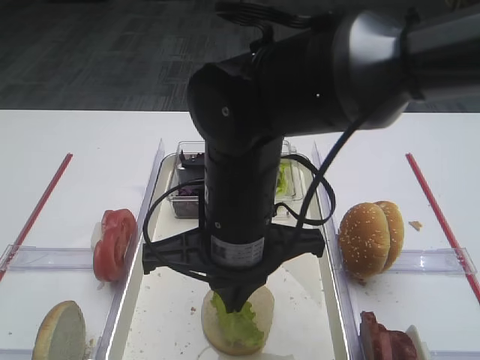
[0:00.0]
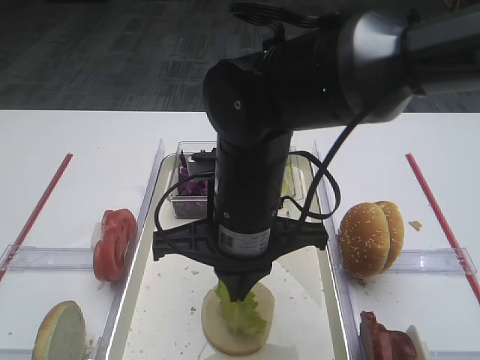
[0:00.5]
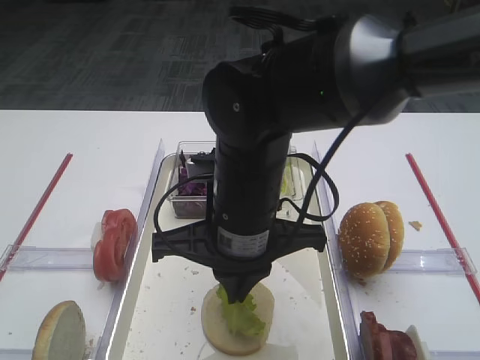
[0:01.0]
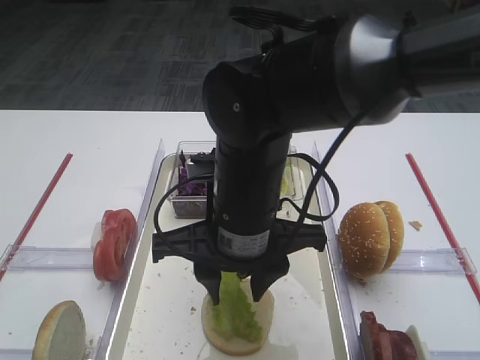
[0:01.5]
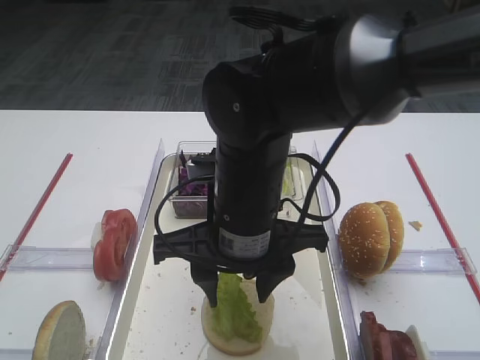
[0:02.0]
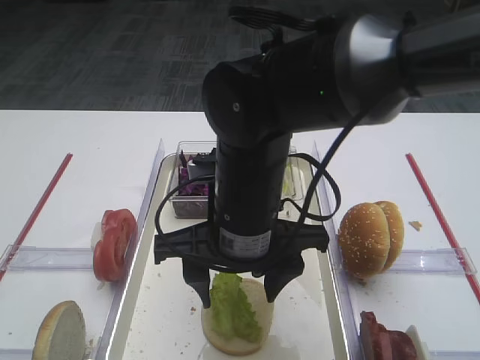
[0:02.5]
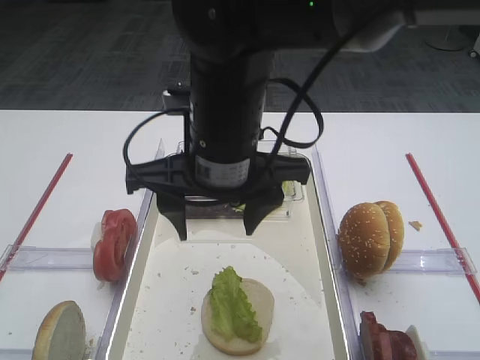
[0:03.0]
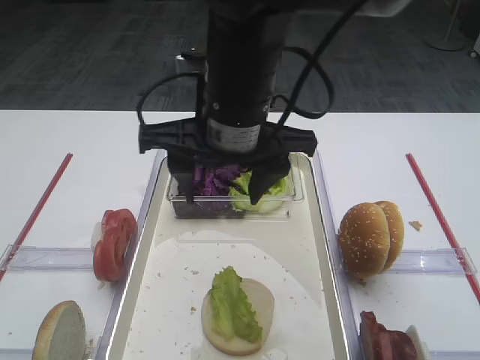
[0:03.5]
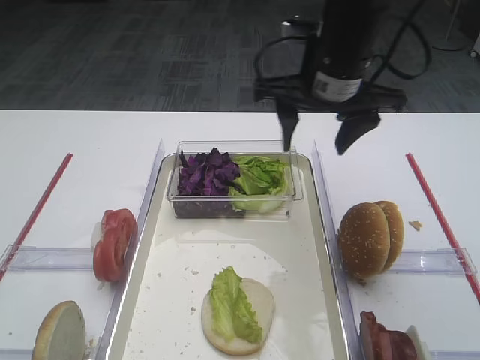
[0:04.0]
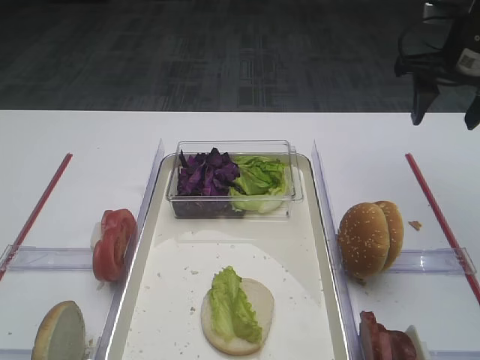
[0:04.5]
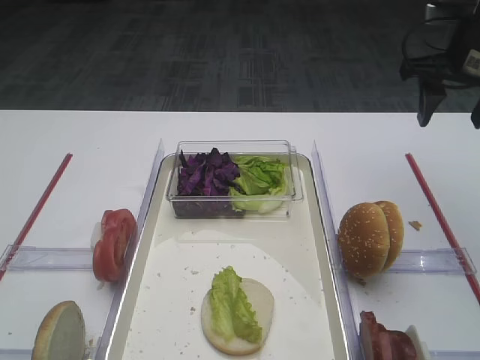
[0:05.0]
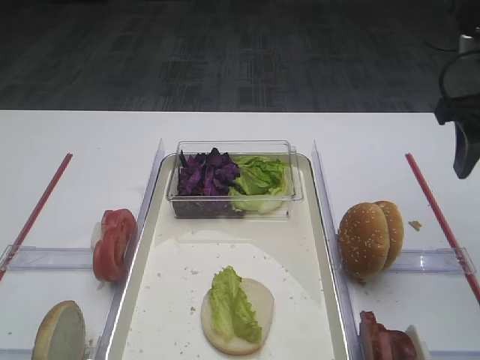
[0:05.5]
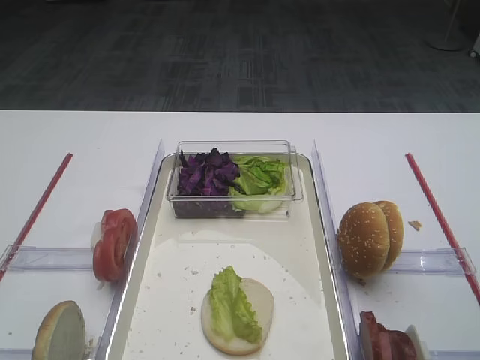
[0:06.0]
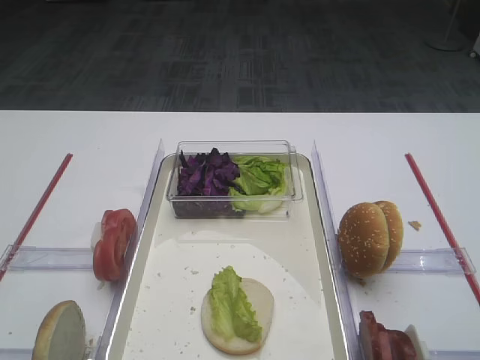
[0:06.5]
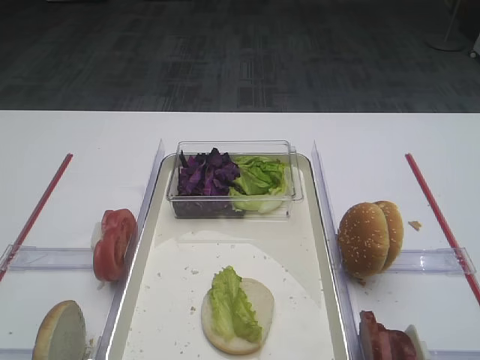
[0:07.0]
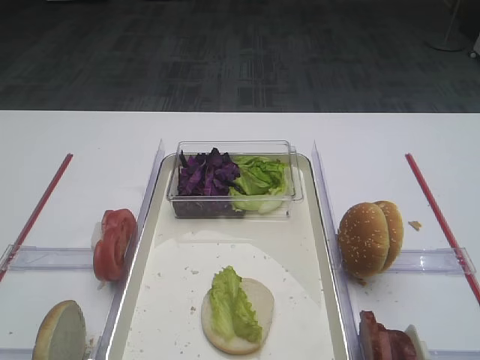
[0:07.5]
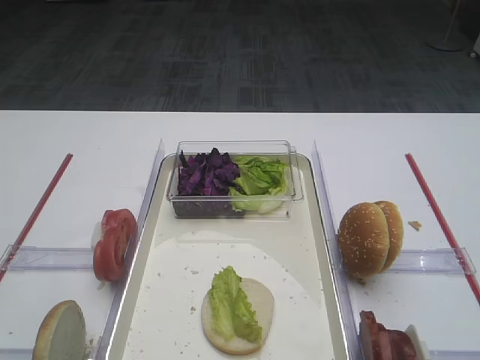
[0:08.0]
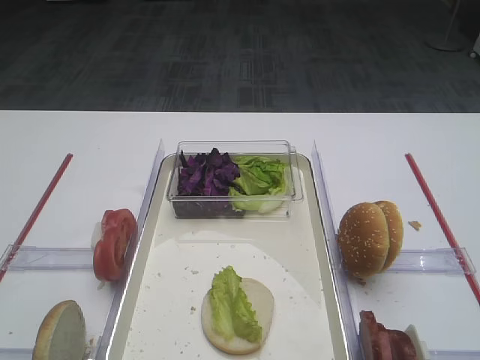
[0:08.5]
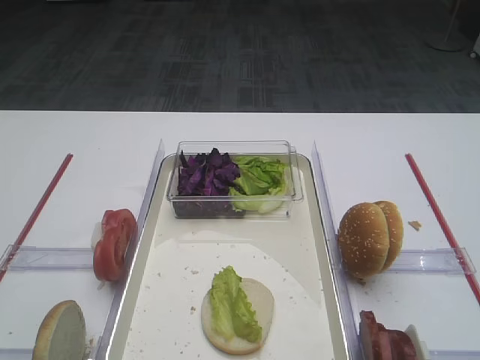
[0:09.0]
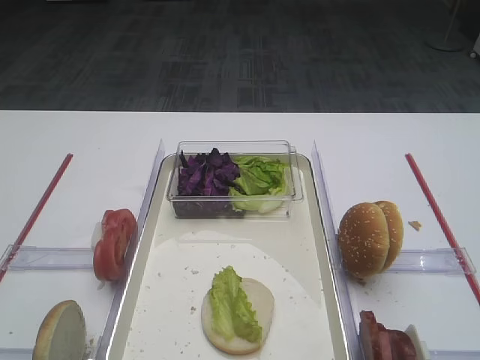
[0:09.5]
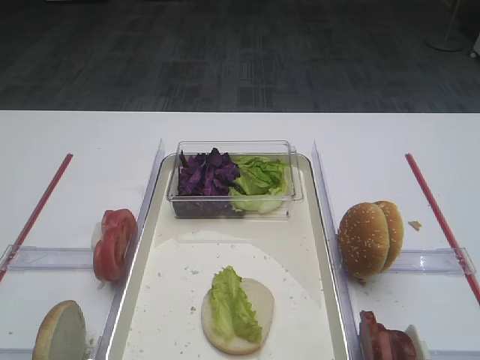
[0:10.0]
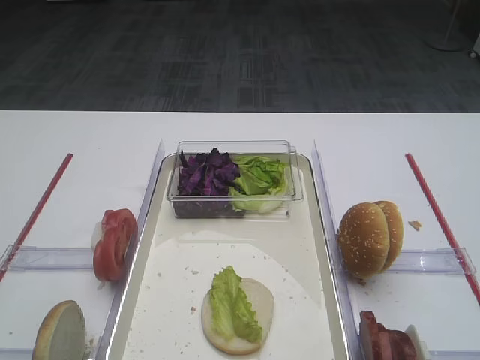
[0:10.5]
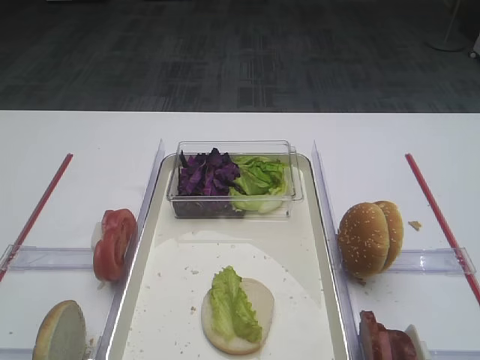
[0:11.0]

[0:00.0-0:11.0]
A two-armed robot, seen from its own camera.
Step, 0:00.0 to 0:02.0: Place the lettuce leaf on the bread slice with the right gripper.
0:00.0 to 0:02.0: The right gripper opens its fingers.
0:02.0 to 0:03.5: The right gripper moves upward, roughly 10 cm.
0:03.5 to 0:05.5: The right gripper travels to the right by some 30 cm.
0:05.5 to 0:07.5: The right gripper is displaced backward by roughly 25 cm.
0:09.0 to 0:11.0: Neither gripper changes place.

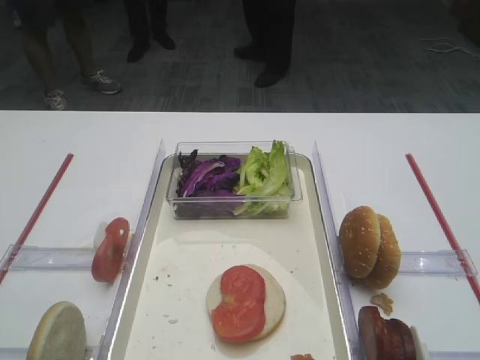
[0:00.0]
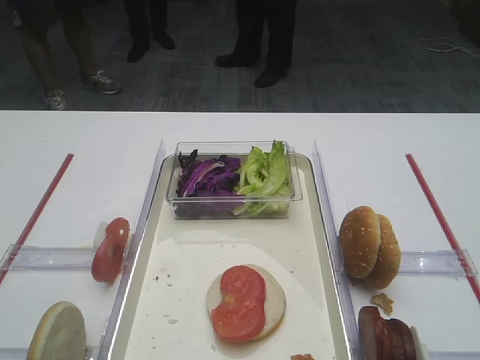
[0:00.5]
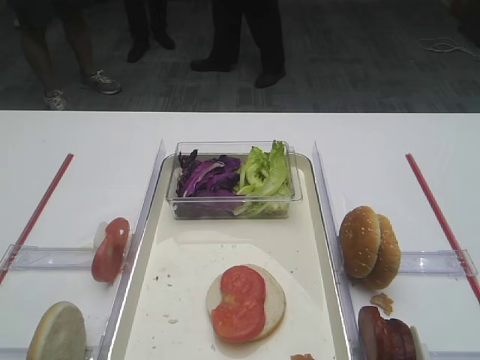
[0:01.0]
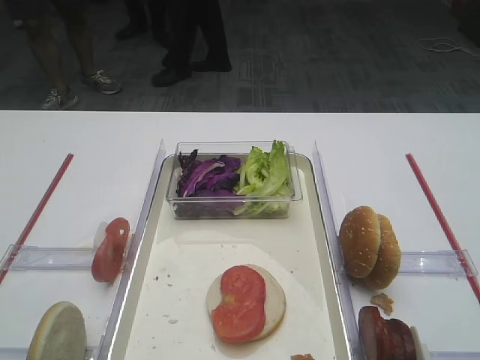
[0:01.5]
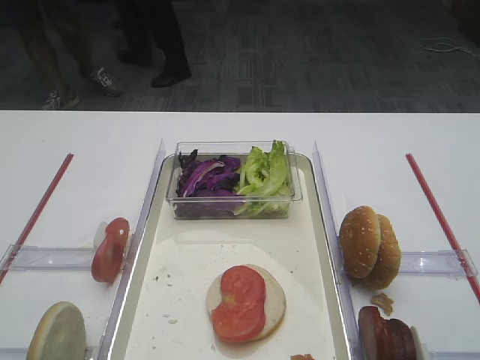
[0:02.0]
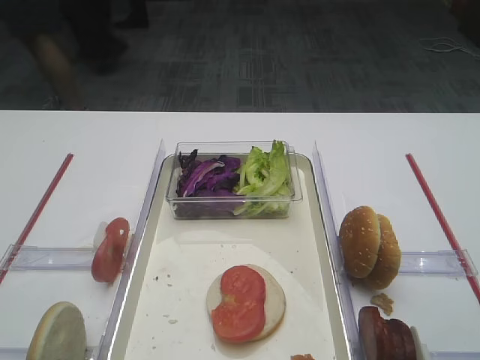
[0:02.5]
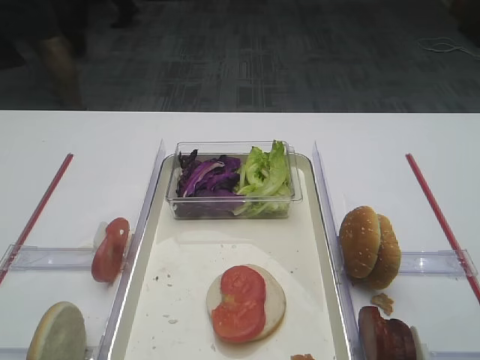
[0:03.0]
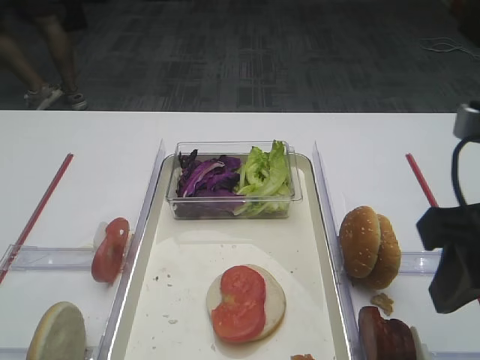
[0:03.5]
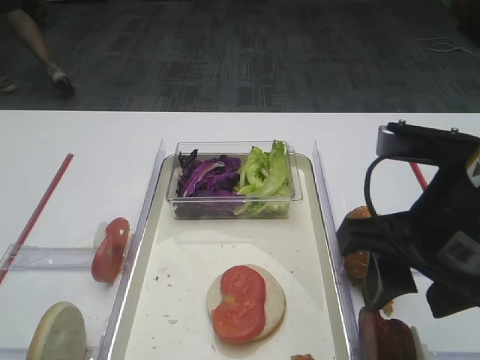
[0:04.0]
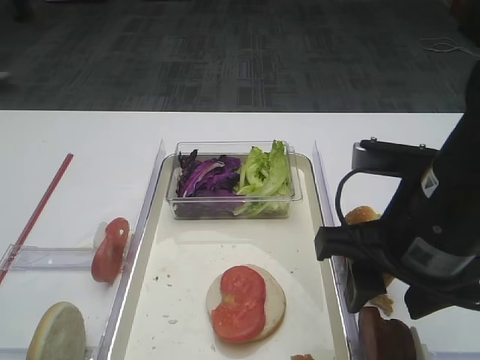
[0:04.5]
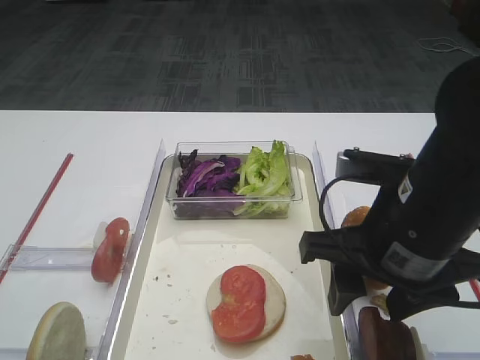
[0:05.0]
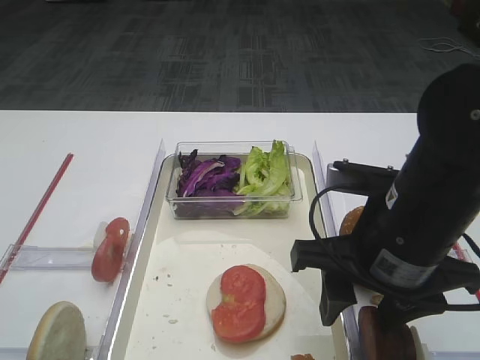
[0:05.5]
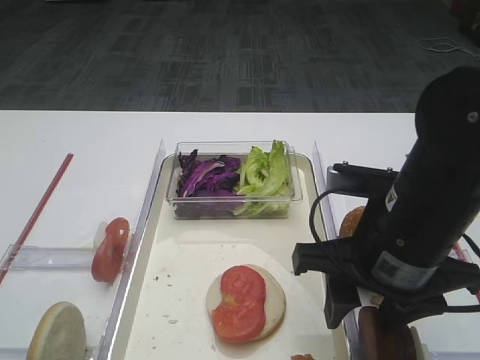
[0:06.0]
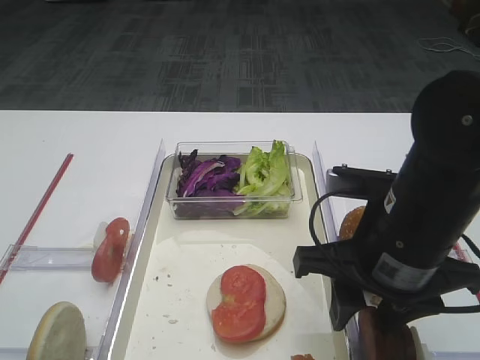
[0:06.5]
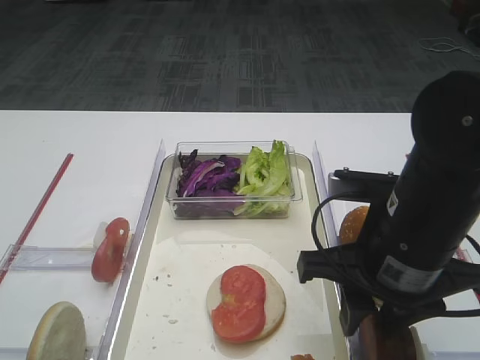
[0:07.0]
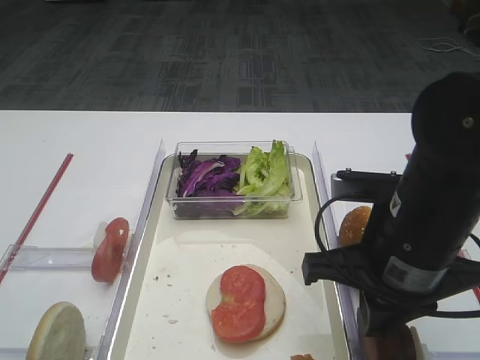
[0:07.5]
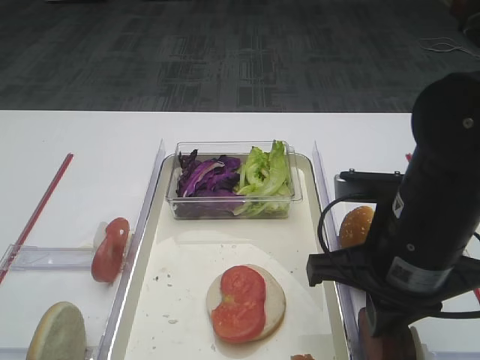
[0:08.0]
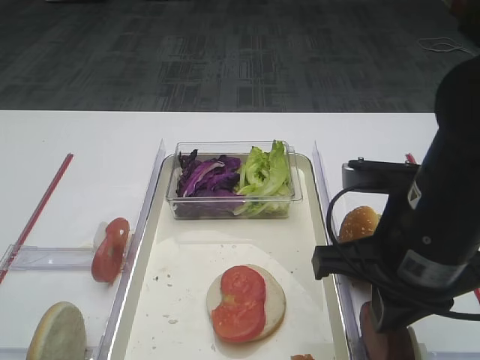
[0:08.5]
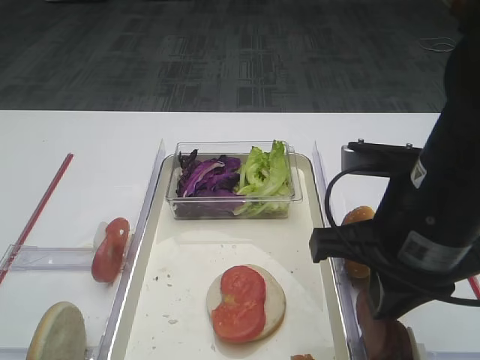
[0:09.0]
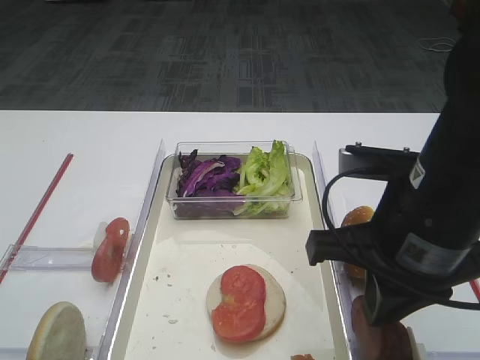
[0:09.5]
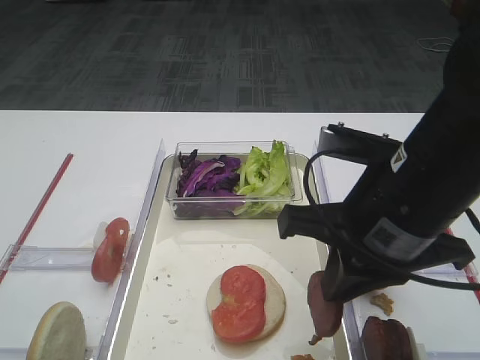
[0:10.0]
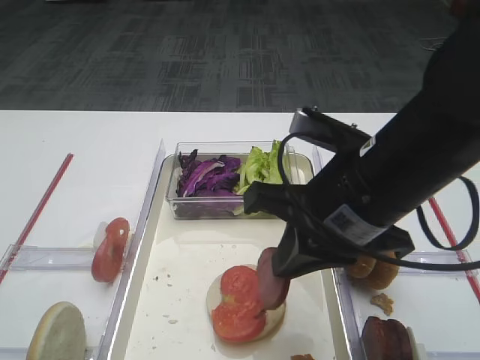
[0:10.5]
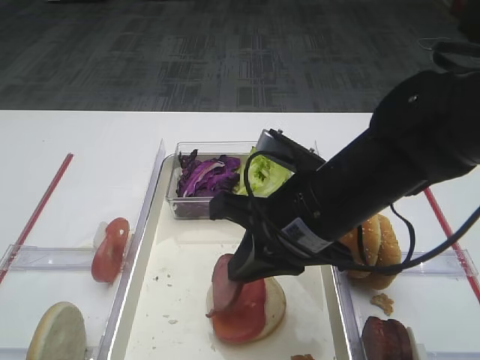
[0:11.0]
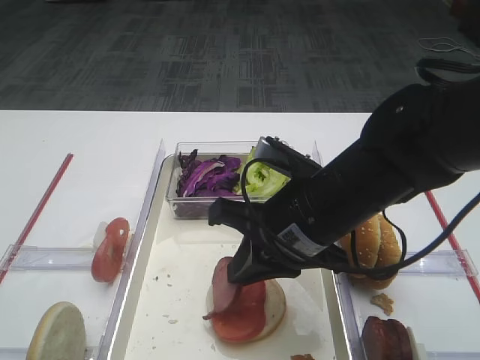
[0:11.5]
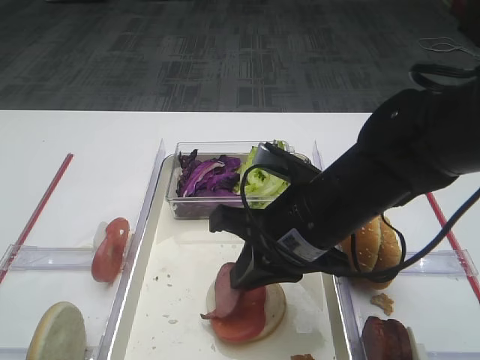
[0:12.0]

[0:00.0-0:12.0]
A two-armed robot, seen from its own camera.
Step, 0:00.0 to 0:09.0: Pick up the cutlet with the right gripper.
0:02.0 to 0:04.0: The right gripper heads to the left, forward and downward, covering approximately 15 cm.
0:04.0 to 0:06.0: The right gripper heads downward, covering roughly 5 cm.
0:06.0 to 0:08.0: The right gripper closes its fingers.
0:08.0 to 0:10.0: There are only small adjustments of the grippers.
0:10.0 to 0:12.0: The right gripper shifts about 5 cm downward.

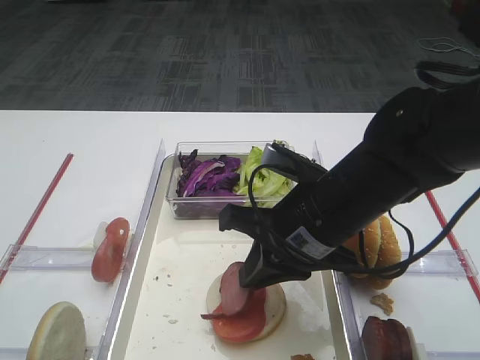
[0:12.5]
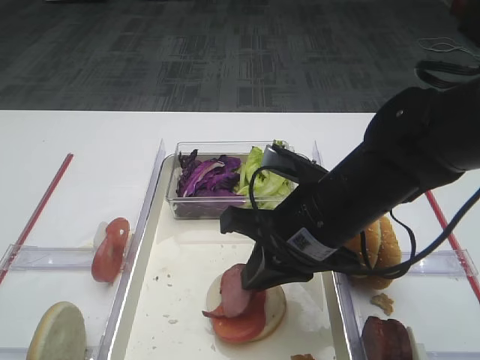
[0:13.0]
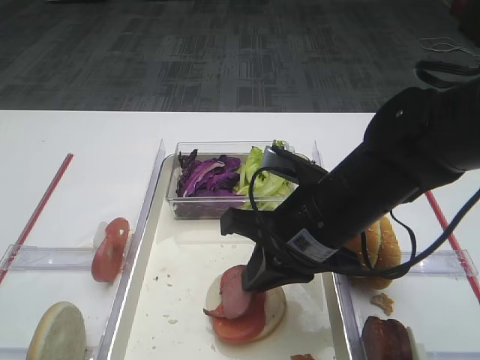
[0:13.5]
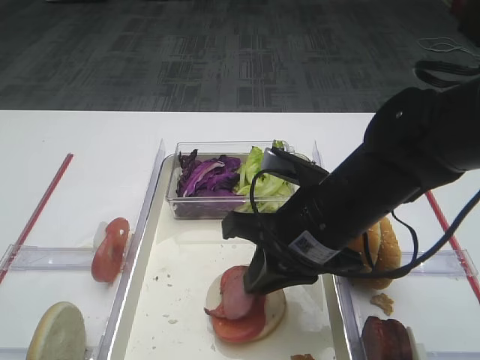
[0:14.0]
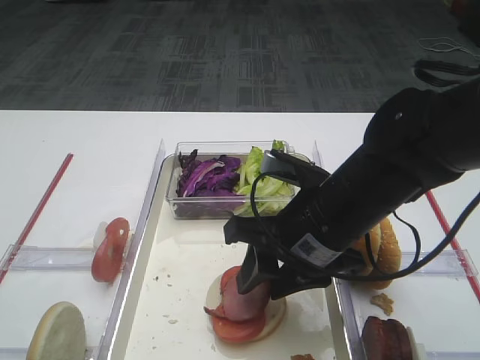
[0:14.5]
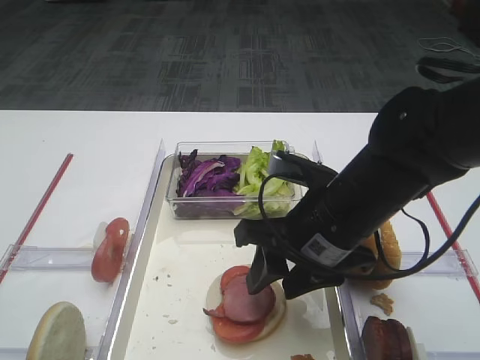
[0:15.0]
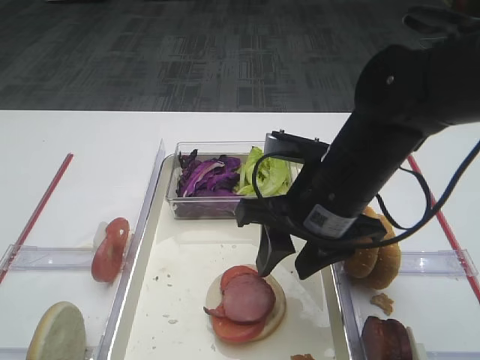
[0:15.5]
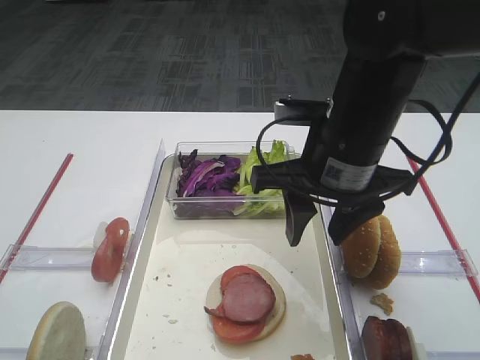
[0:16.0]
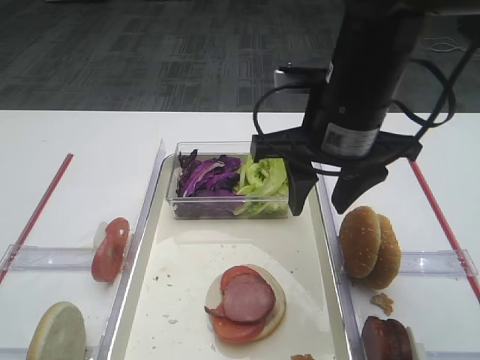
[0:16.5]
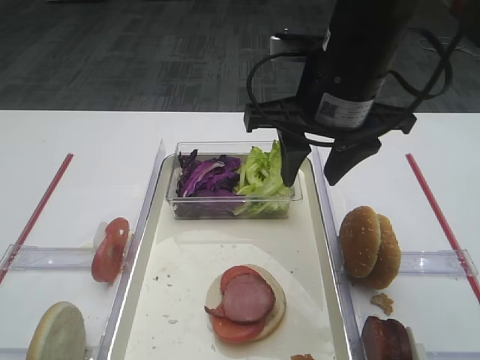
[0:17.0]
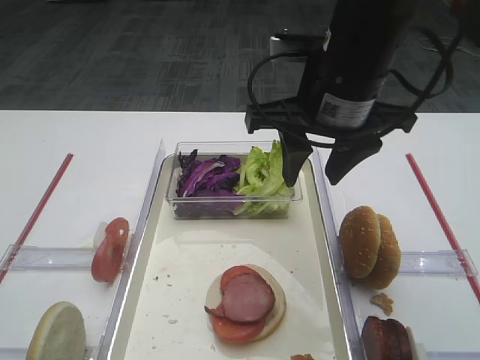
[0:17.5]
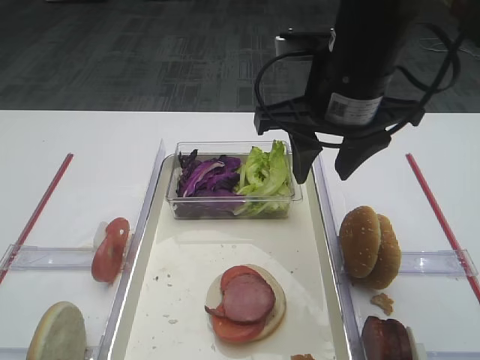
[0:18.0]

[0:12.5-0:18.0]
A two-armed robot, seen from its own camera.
Step, 0:12.5 to 0:15.0: Place the cutlet on the tomato slice with the right gripper.
0:12.5 to 0:14.5: The right gripper opens up.
0:14.5 to 0:16.0: The right gripper moves upward, about 5 cm.
0:16.0 to 0:18.0: The right gripper heads upward, covering some 5 cm.
